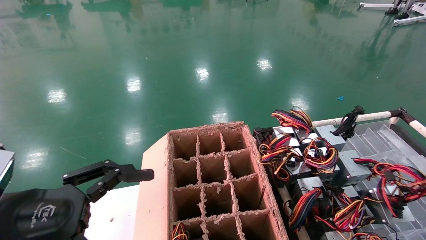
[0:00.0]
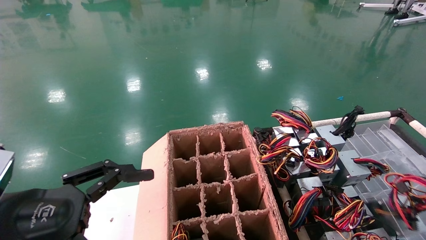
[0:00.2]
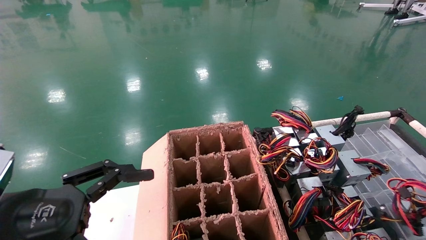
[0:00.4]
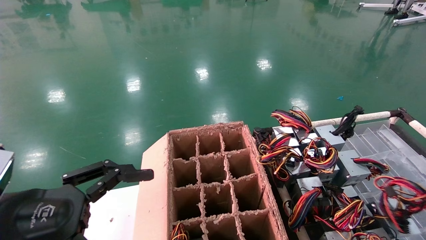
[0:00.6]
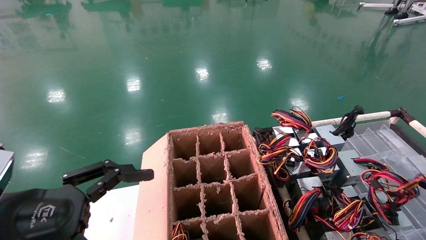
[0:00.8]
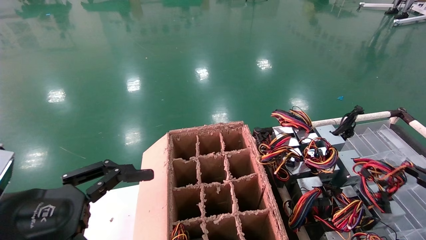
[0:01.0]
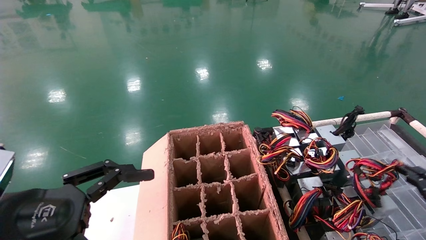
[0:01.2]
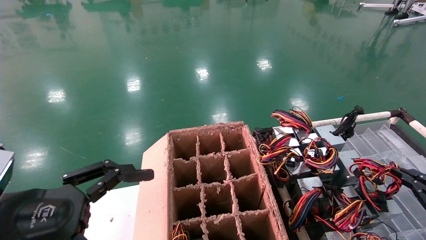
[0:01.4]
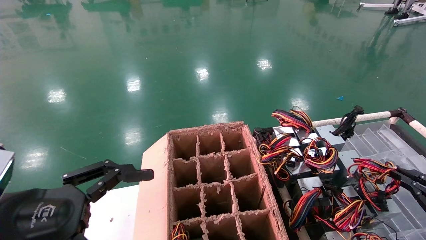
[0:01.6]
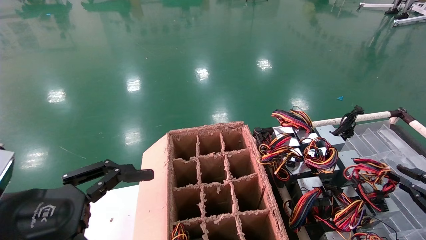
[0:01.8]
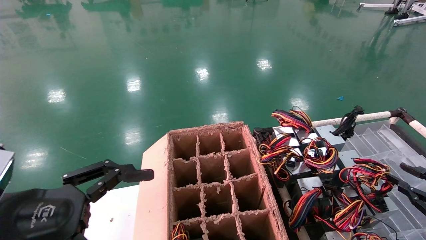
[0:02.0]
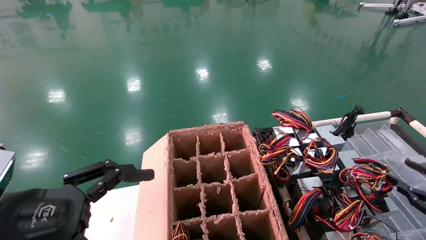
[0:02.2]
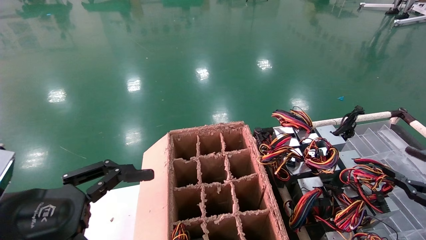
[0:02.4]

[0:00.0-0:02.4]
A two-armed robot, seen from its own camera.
0:00.0 to 0:01.2: The right gripper is displaced forward by approximately 5 cm.
0:01.2 to 0:02.4: The right gripper opens its fingers.
